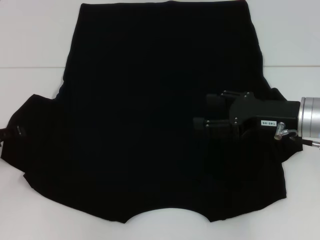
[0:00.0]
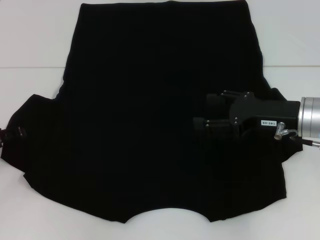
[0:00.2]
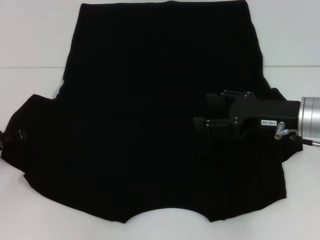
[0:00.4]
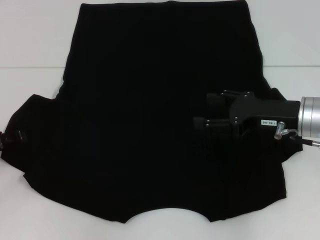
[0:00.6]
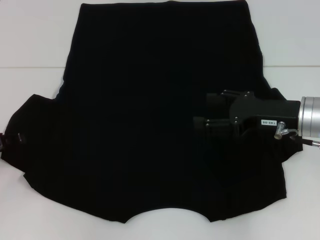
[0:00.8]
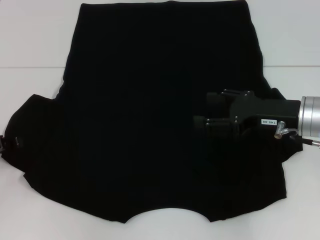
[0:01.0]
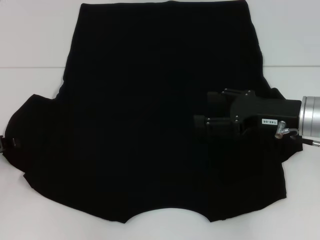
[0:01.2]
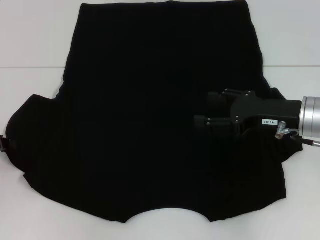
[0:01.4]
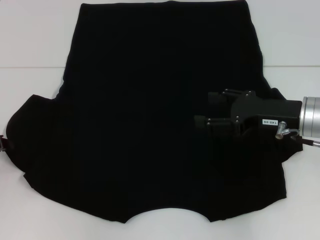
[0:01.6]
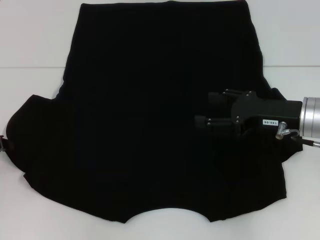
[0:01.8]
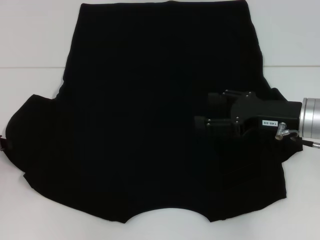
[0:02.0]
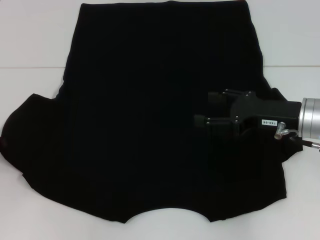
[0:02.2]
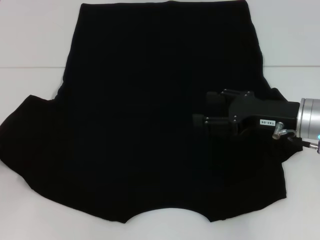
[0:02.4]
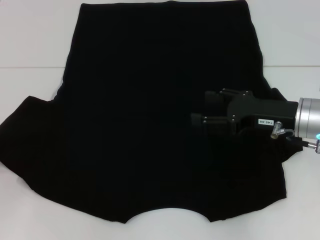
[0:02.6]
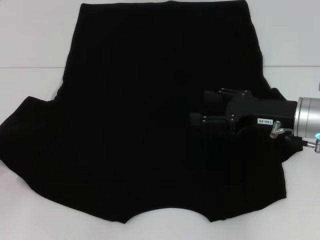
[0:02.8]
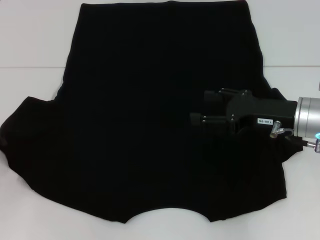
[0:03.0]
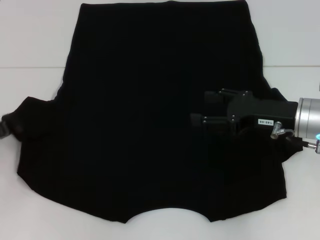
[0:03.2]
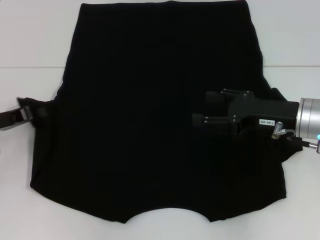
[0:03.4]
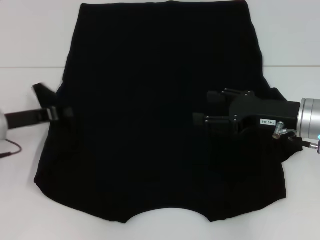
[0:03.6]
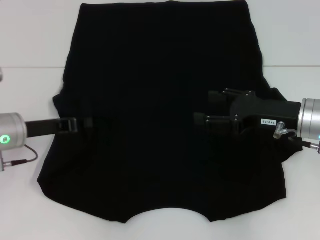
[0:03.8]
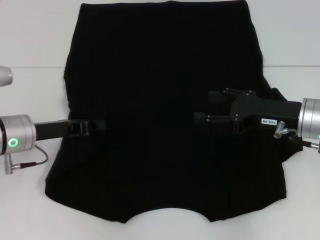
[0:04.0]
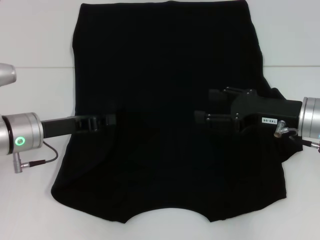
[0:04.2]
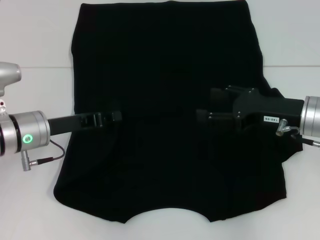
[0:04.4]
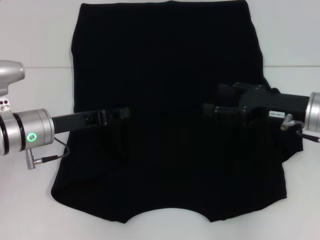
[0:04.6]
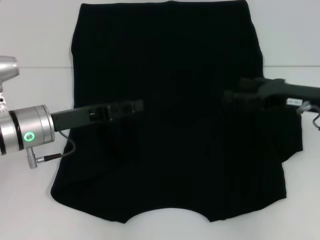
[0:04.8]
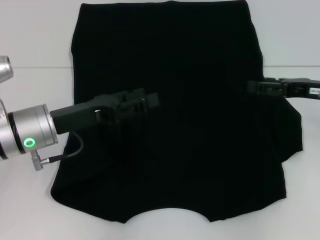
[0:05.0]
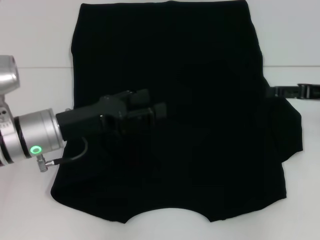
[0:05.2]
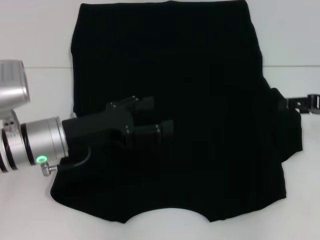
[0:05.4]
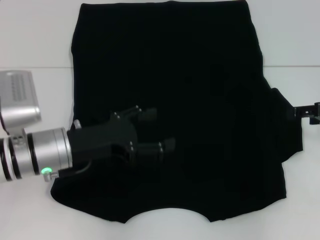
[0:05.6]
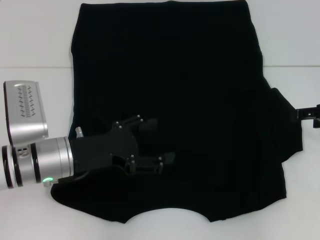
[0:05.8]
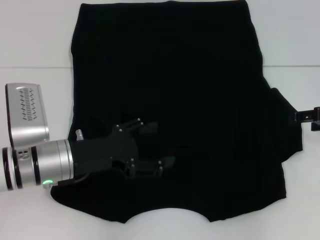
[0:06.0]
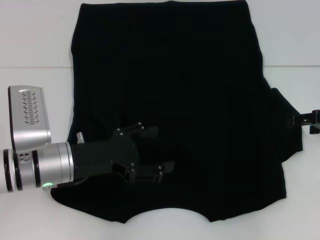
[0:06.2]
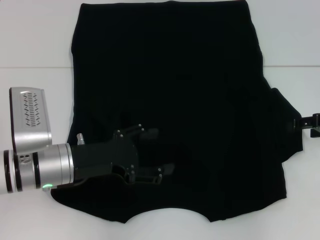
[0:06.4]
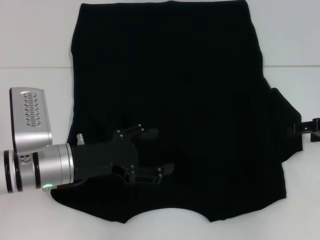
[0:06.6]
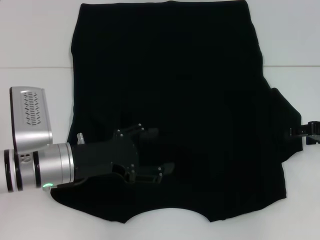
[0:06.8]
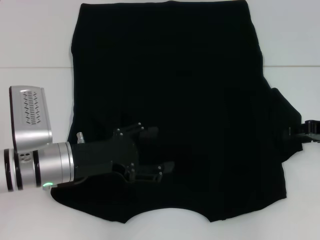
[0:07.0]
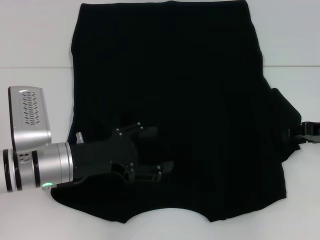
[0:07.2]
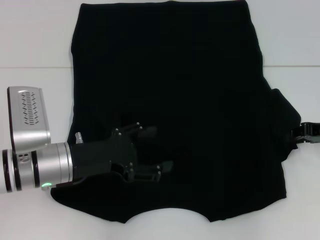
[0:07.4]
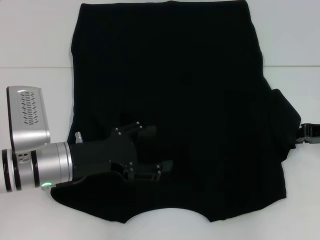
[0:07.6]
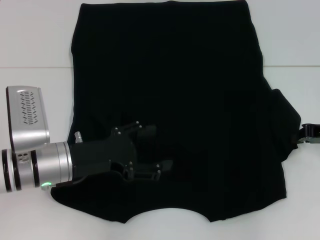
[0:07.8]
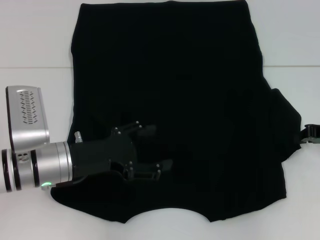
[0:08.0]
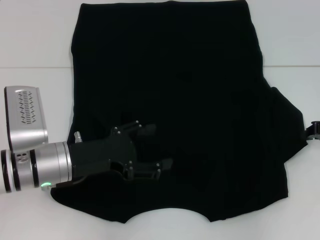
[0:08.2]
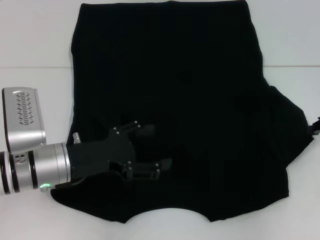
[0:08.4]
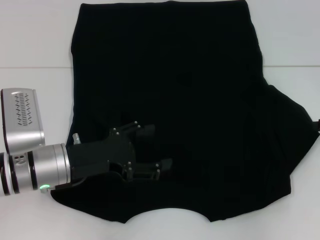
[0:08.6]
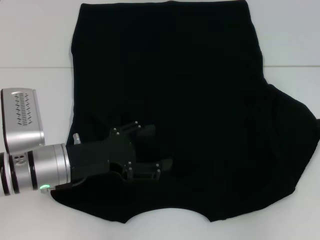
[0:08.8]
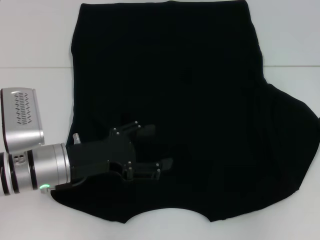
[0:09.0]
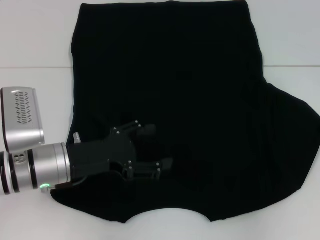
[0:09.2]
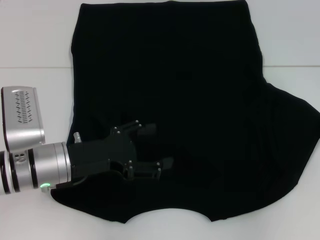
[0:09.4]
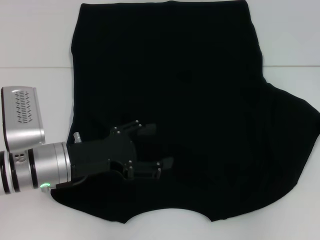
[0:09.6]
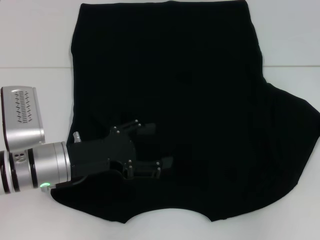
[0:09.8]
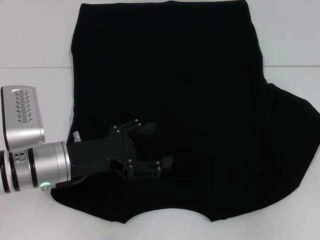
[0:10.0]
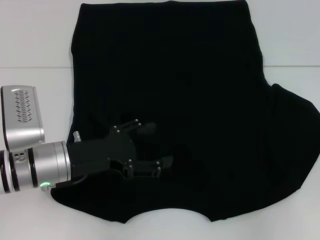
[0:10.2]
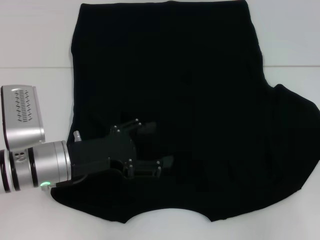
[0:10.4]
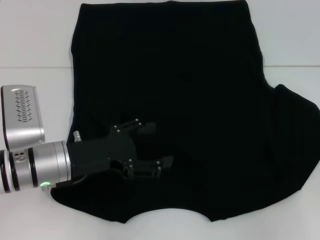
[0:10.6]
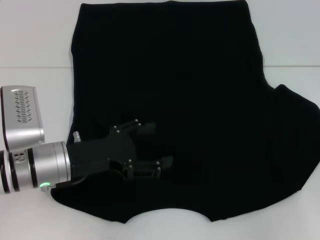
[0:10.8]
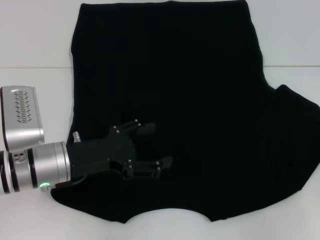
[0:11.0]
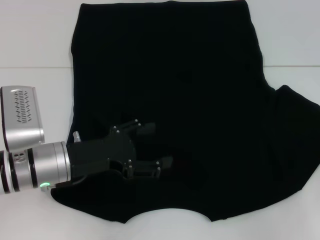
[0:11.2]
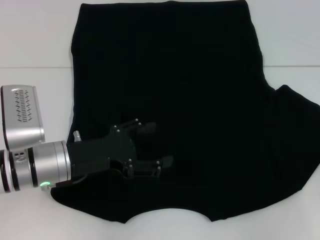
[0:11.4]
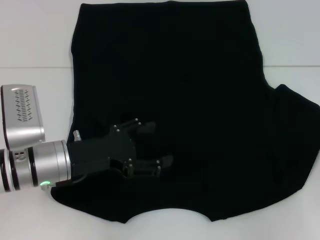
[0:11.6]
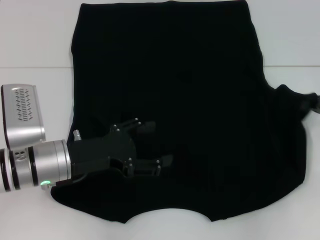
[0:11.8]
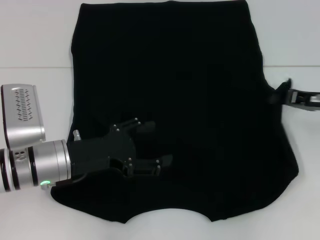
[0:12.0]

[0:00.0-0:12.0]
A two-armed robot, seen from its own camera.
Step, 0:00.0 to 0:04.4: Fold the bottom left sleeve with your left hand.
0:01.6 to 0:03.0: The grippers make only small movements.
0:03.0 to 0:04.4: The left gripper shifts approximately 15 cm to the right.
0:04.4 to 0:06.0: The right gripper heads to the right, covering approximately 10 cm. The left gripper changes place by about 5 cm, and opens up.
0:06.0 to 0:07.6: The right gripper closes its fingers.
0:07.6 to 0:10.4: There are only small adjustments of the grippers.
0:10.4 to 0:12.0: The right gripper travels to the left by roughly 5 cm.

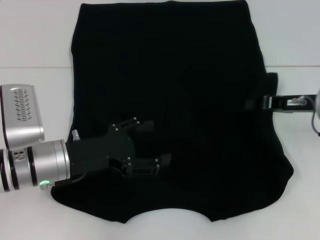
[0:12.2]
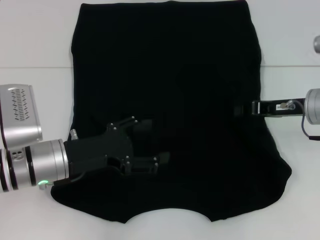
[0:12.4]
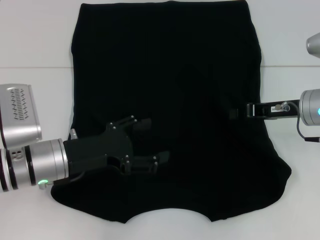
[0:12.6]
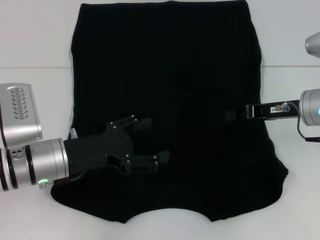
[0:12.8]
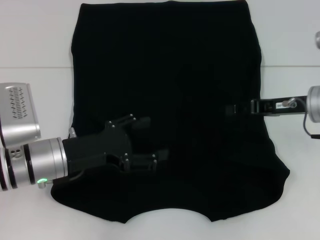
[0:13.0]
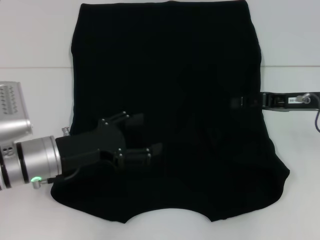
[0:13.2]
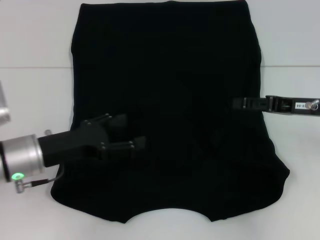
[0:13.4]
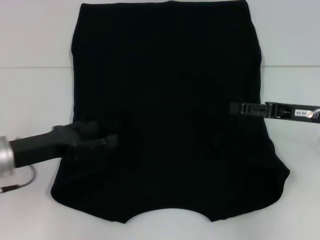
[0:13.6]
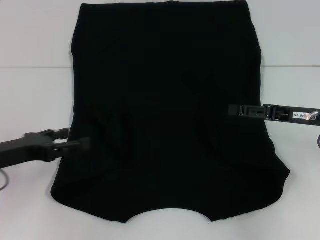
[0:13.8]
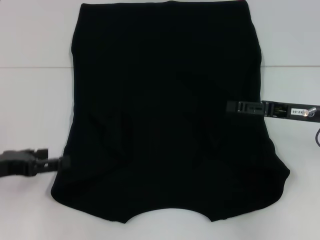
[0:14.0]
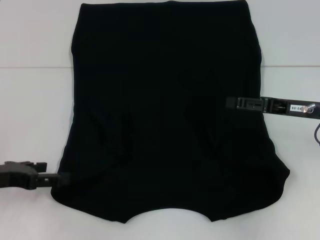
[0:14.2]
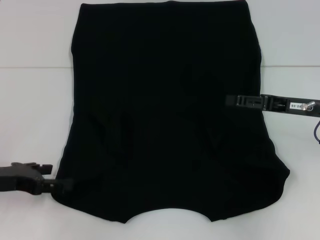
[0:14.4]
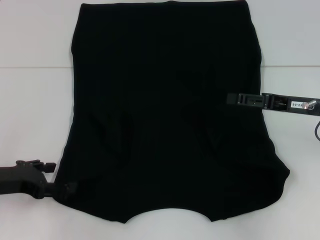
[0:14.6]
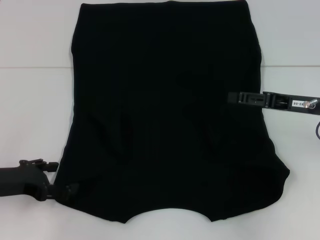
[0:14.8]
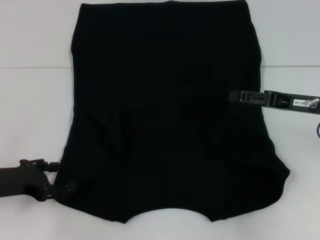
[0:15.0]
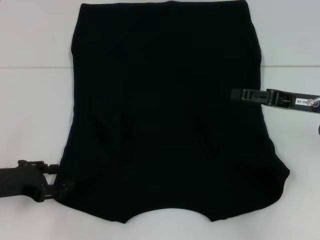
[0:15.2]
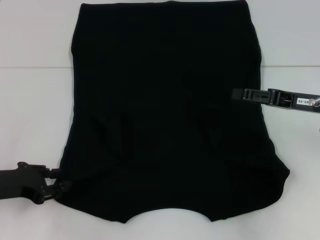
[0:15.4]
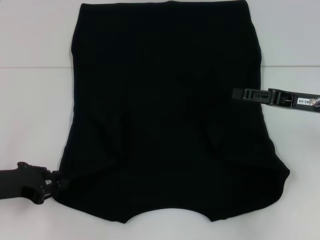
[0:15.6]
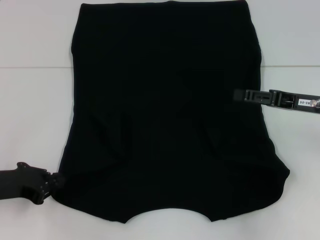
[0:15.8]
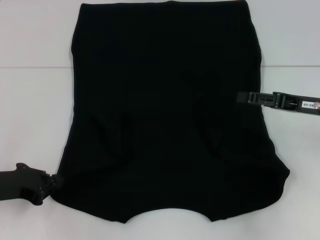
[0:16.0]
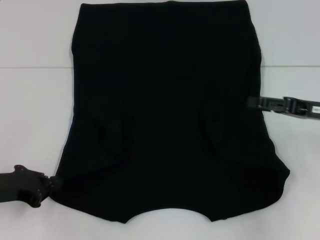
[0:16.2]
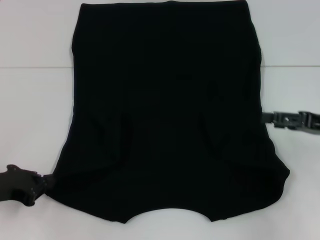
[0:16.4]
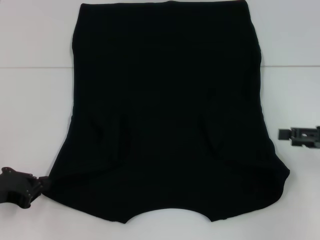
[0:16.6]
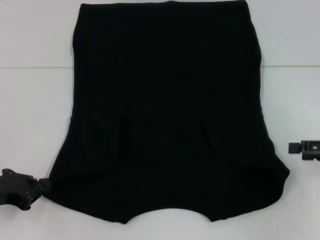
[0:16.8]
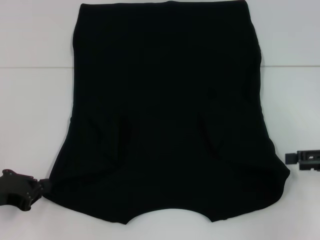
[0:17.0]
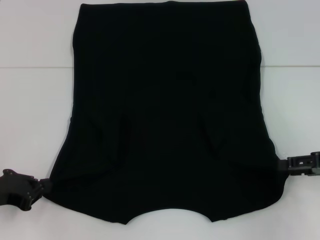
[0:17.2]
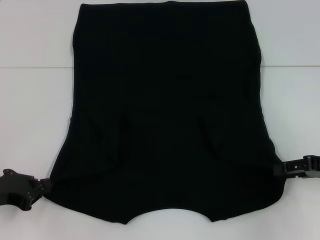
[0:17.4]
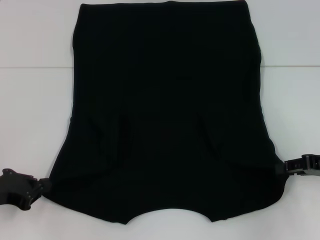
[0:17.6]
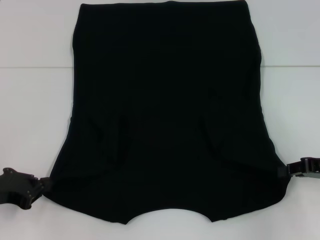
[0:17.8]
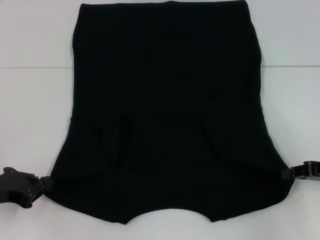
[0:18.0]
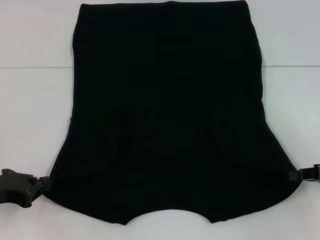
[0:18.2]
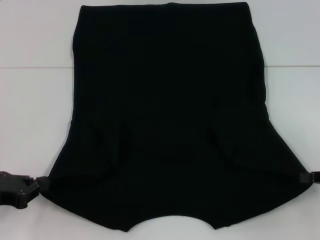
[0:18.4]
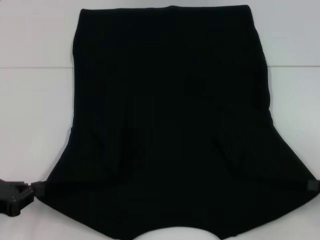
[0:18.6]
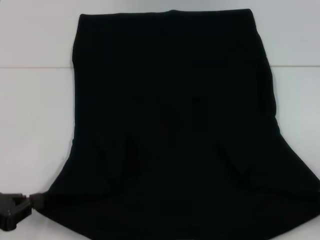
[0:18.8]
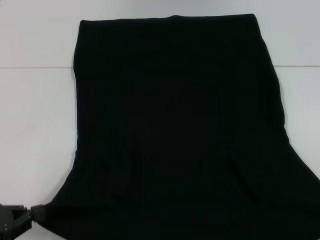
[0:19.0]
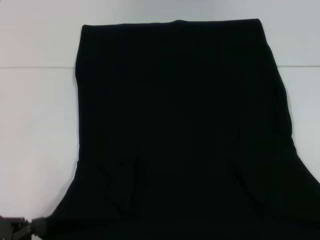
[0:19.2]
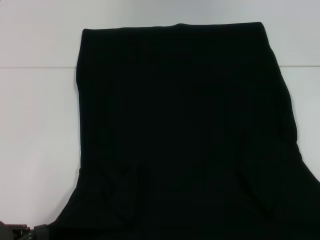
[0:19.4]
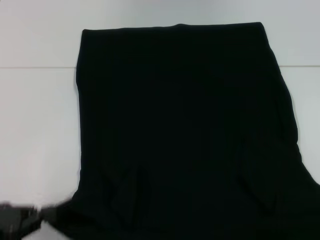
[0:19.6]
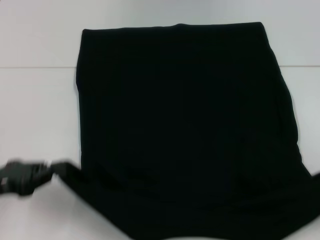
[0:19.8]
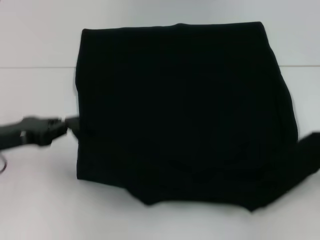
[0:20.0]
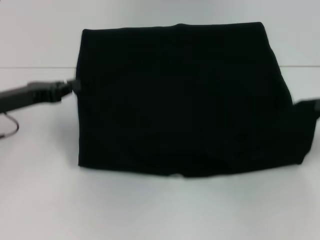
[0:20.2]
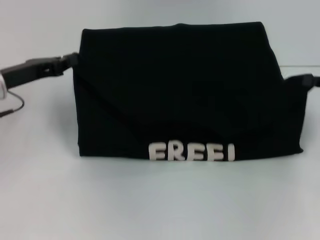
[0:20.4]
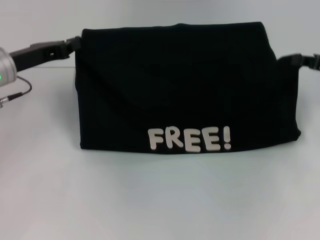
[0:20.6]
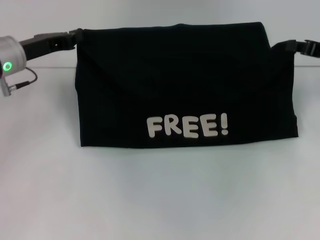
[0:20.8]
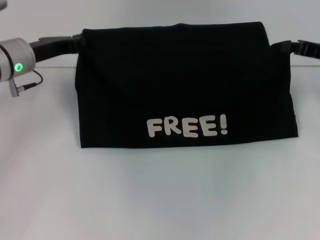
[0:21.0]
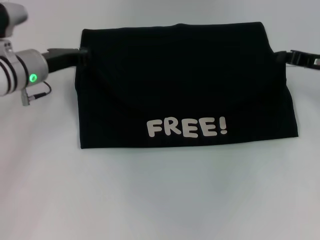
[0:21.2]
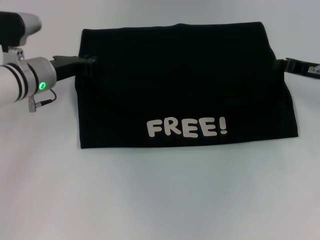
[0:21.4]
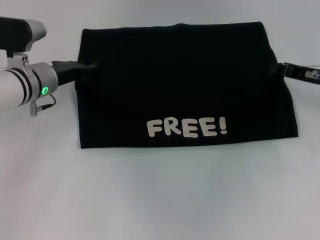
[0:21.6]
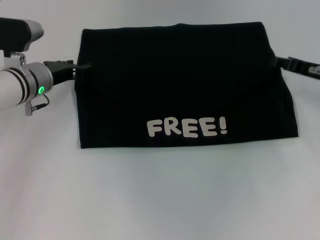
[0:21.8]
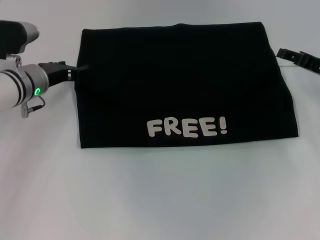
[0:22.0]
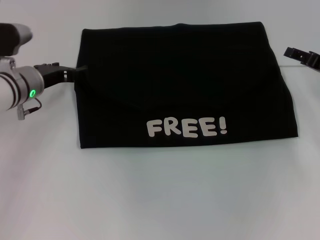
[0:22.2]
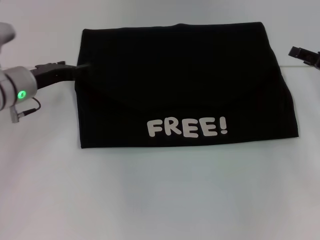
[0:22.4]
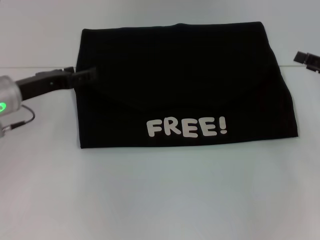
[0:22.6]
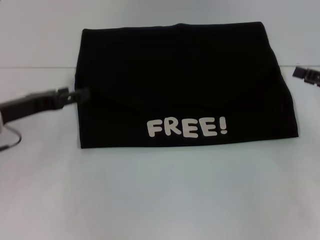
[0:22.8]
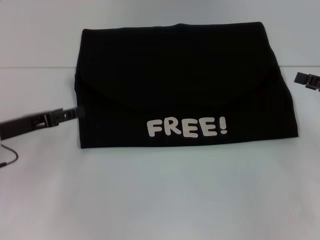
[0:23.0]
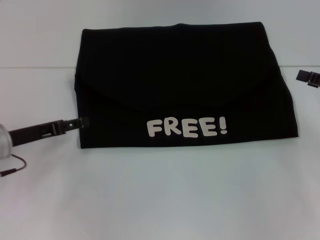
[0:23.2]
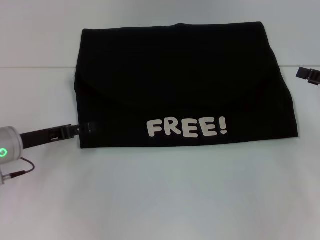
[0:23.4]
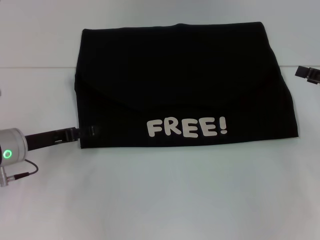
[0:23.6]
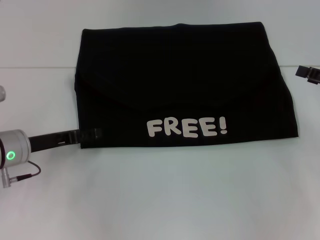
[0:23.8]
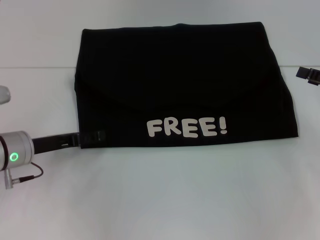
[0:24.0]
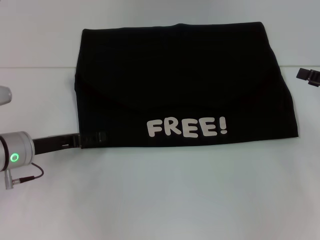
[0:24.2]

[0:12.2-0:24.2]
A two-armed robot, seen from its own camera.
Step, 0:13.0 to 0:15.8: Grab the bottom left corner with your left hand.
Step, 0:16.0 to 0:18.0: Grab the bottom right corner with your right hand.
Step, 0:18.2 to 0:21.8: Fold the clothes with your left hand.
Step, 0:18.2 to 0:21.8: Fold the clothes with your right hand.
0:12.2 to 0:13.8: The right gripper opens. The left gripper goes approximately 10 cm to the left.
0:15.2 to 0:16.6: The right gripper shifts some 5 cm to the right. Meanwhile the left gripper closes up.
0:16.6 to 0:18.2: The right gripper closes its fingers.
0:18.2 to 0:19.8: The left gripper moves roughly 10 cm backward and comes back. The right gripper shifts some 10 cm backward and to the right.
0:19.8 to 0:21.2: The left gripper shifts approximately 20 cm forward and to the right, while the right gripper goes roughly 25 cm forward and to the left.
0:21.2 to 0:22.6: Both grippers travel together backward, approximately 5 cm. The right gripper opens. The left gripper opens its fingers.
0:22.6 to 0:24.2: The left gripper heads downward, covering about 5 cm.
